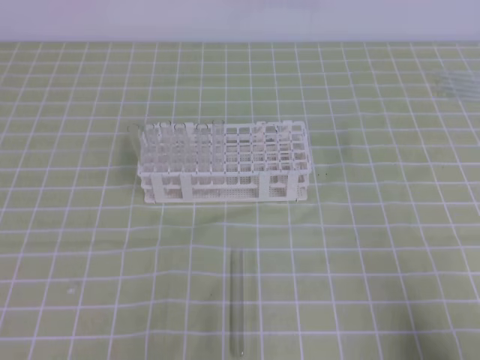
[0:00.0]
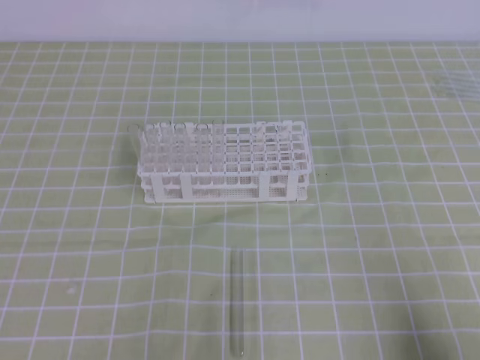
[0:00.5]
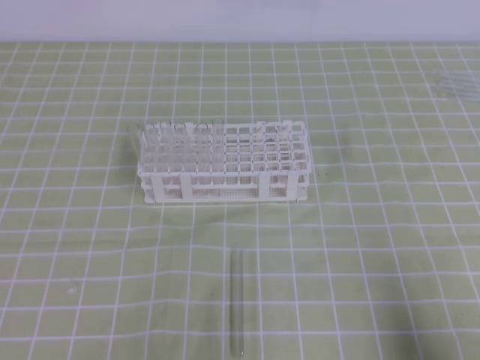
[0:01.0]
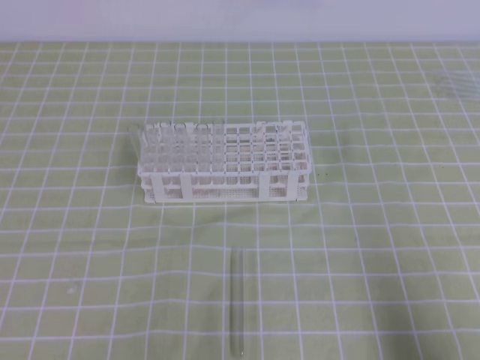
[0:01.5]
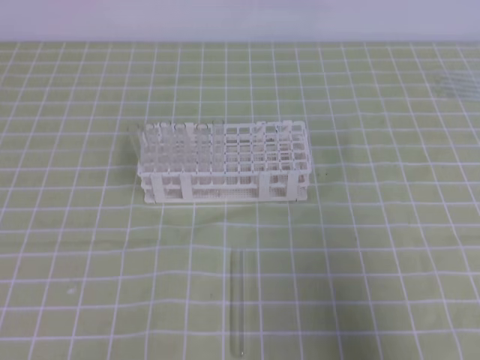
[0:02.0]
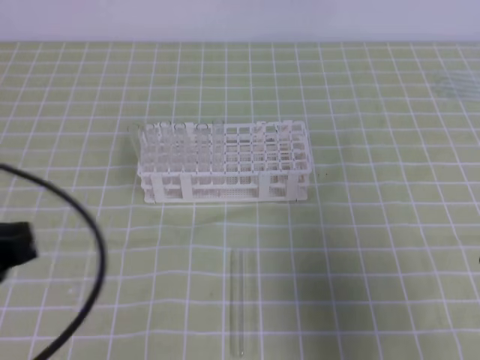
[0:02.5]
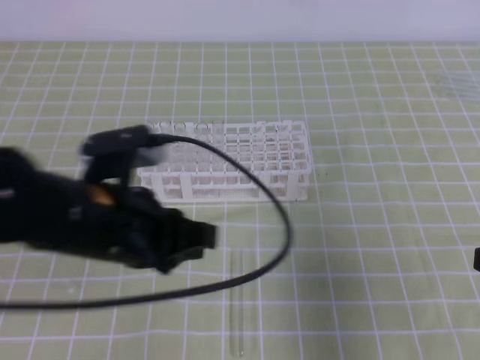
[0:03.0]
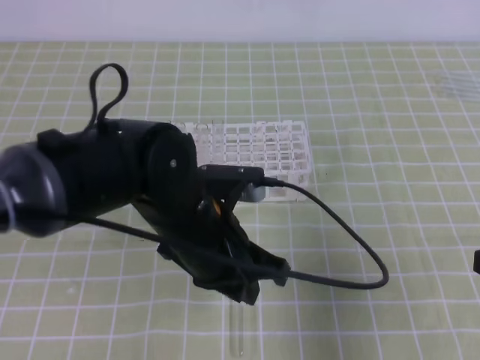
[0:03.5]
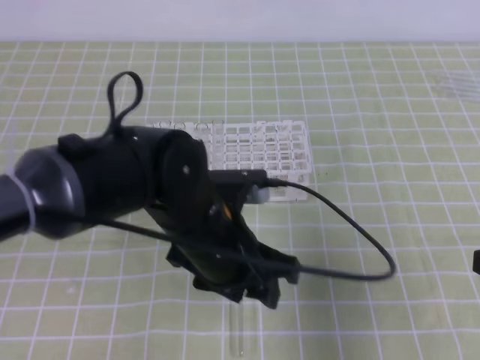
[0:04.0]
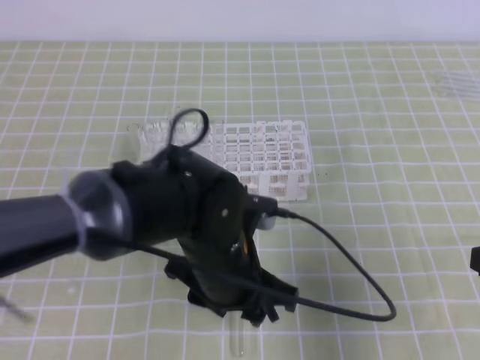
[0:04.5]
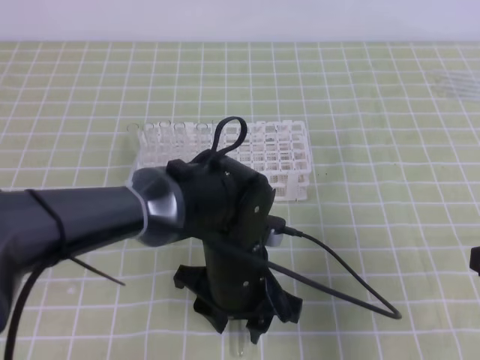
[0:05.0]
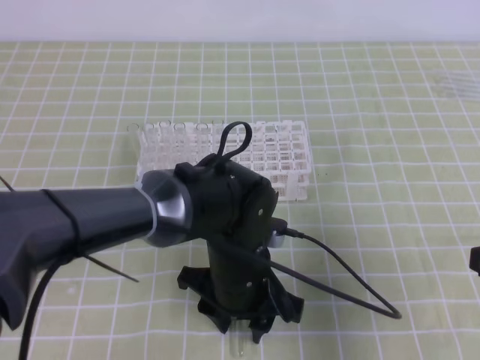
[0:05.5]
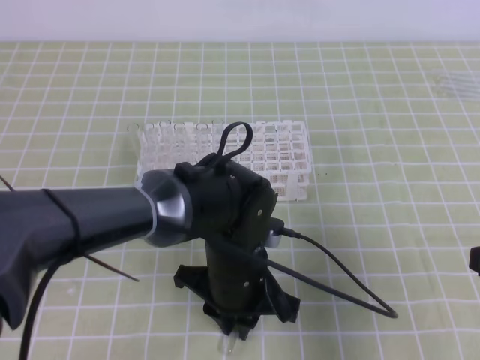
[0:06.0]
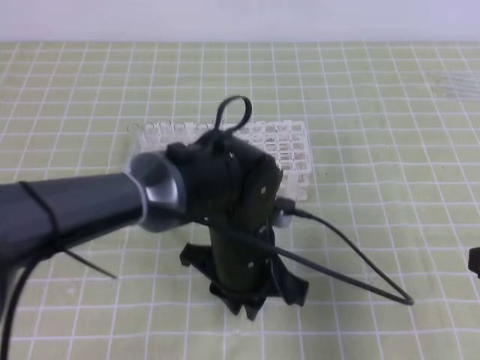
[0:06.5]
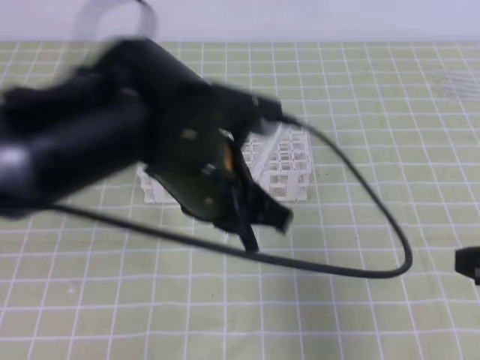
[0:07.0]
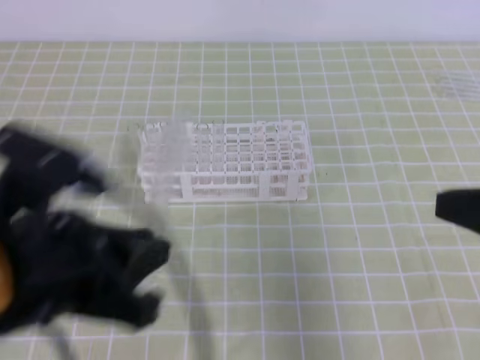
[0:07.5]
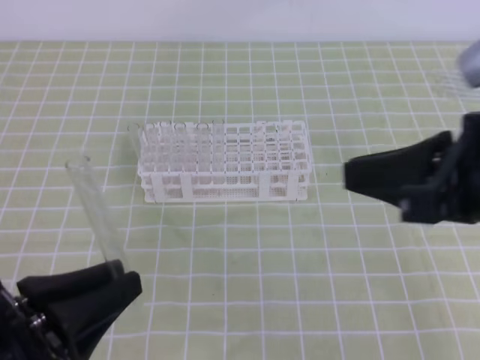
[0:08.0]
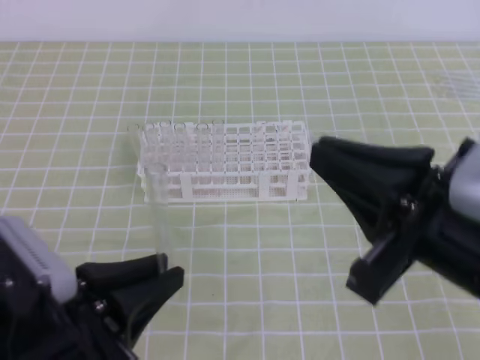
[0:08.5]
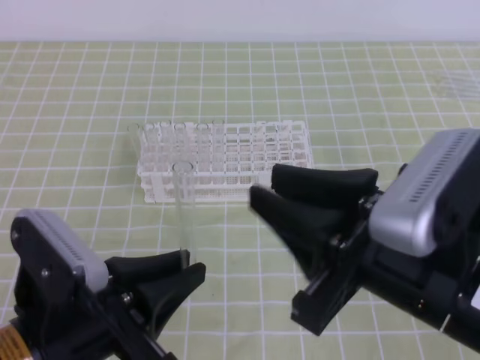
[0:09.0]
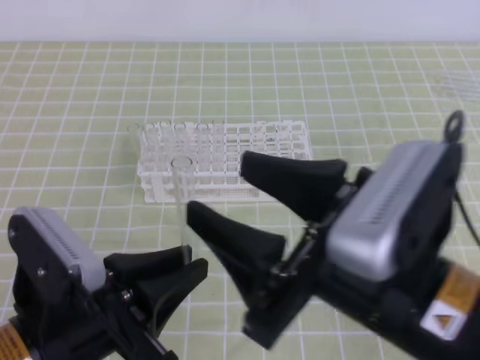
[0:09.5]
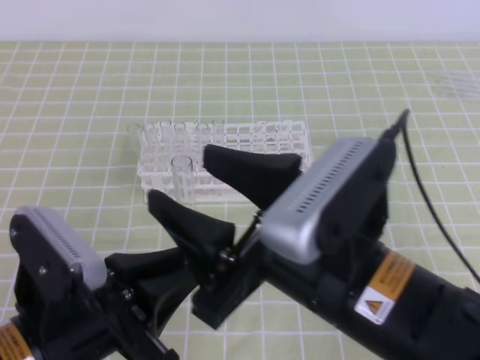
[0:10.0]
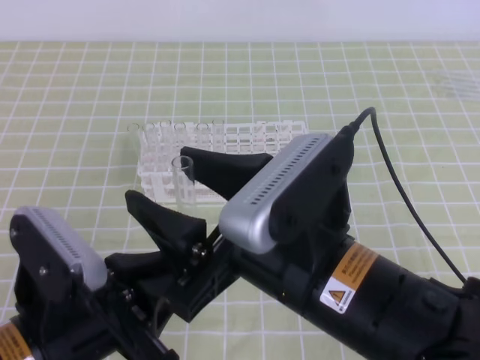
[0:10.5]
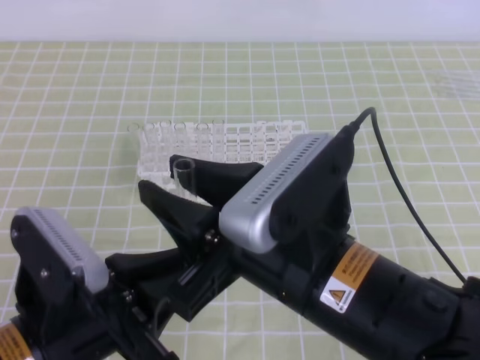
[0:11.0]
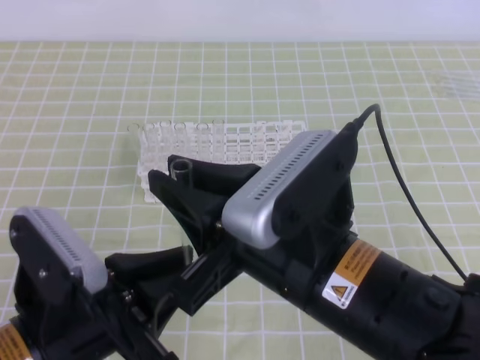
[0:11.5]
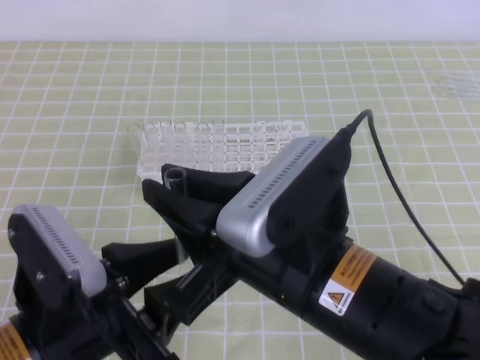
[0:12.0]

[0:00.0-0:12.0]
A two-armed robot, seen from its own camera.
0:00.0 to 0:02.0: The left gripper heads upward, covering some 5 cm; the right gripper travels upward by about 10 cm.
0:02.0 to 0:04.0: The left gripper shifts some 30 cm to the right and forward, and opens. Meanwhile the right gripper goes about 10 cm forward.
0:04.0 to 0:06.0: The left gripper shifts approximately 5 cm downward, and closes up.
0:06.0 to 0:08.0: The right gripper shifts about 10 cm upward and to the left; the left gripper heads to the left, backward and upward, covering about 25 cm.
0:08.0 to 0:10.0: The left gripper ends up roughly 5 cm from where it was; the right gripper shifts some 15 cm to the left, and opens.
0:10.0 to 0:12.0: The left gripper opens. The right gripper closes.

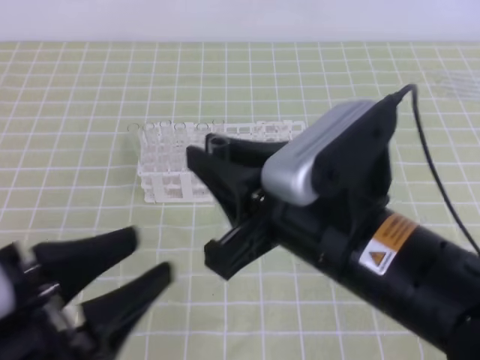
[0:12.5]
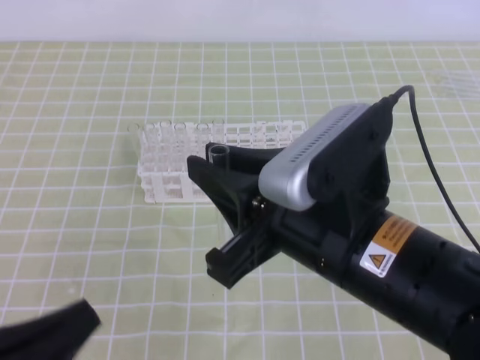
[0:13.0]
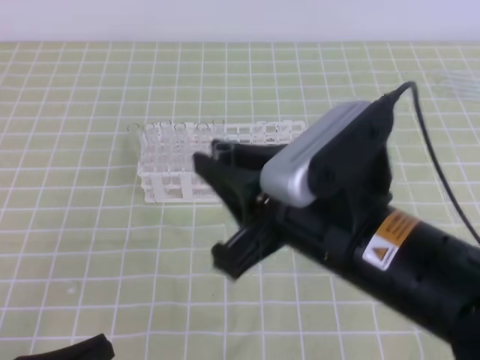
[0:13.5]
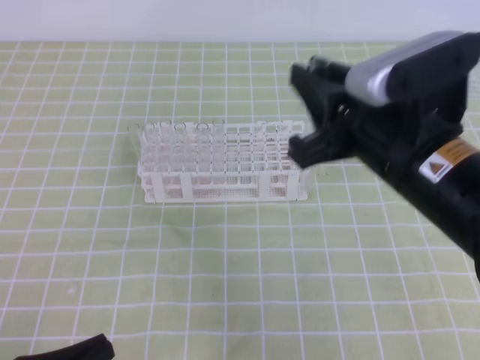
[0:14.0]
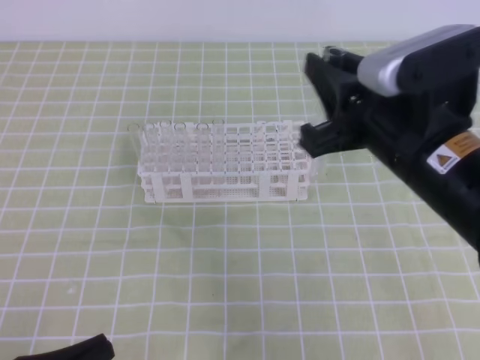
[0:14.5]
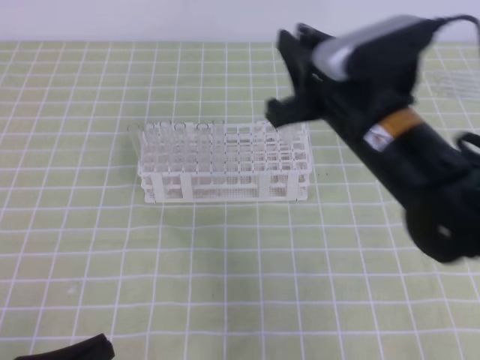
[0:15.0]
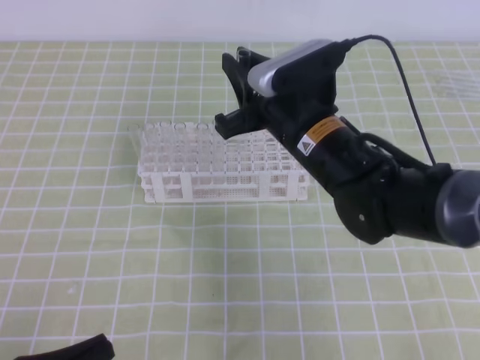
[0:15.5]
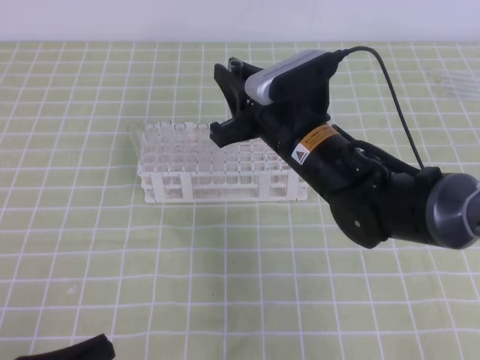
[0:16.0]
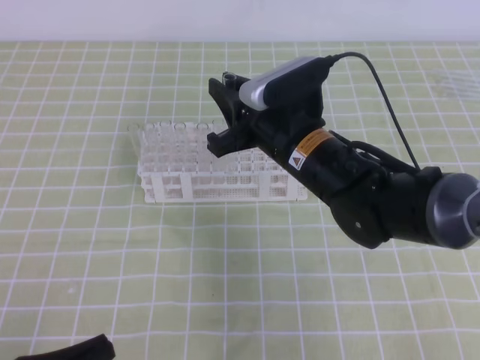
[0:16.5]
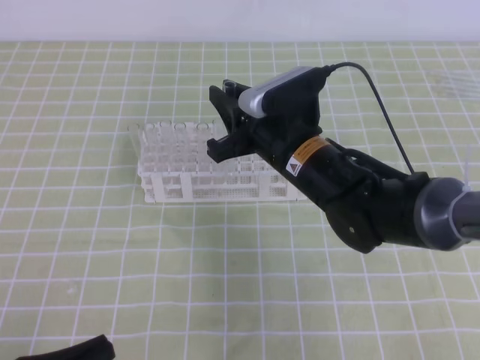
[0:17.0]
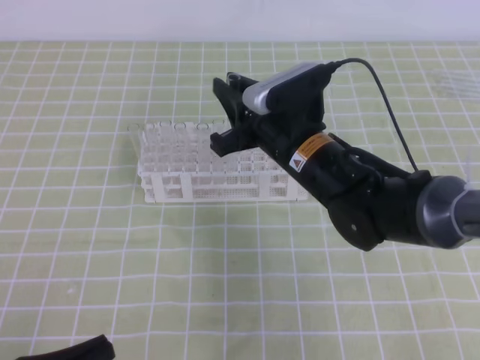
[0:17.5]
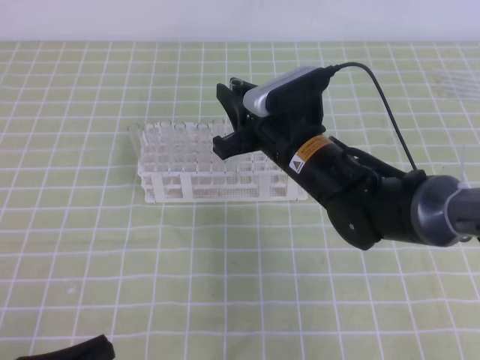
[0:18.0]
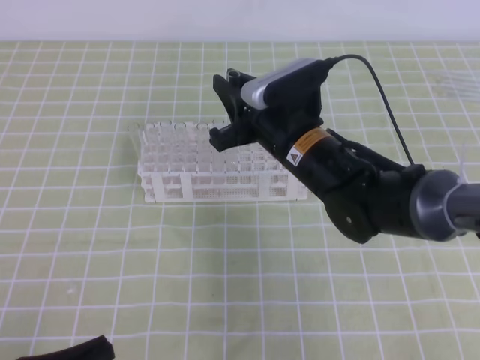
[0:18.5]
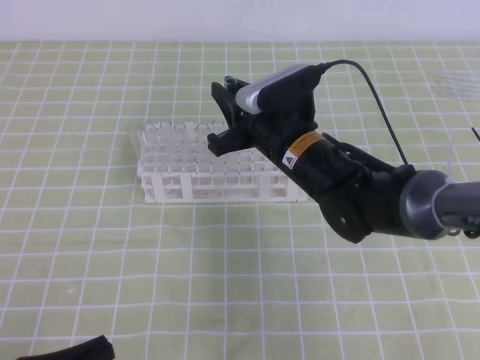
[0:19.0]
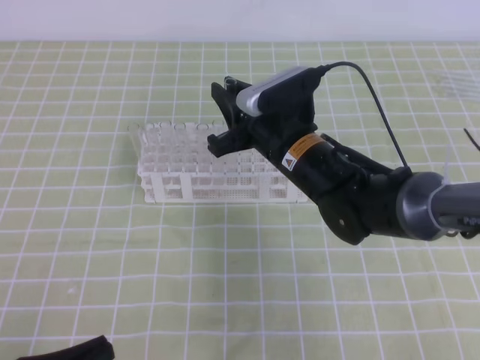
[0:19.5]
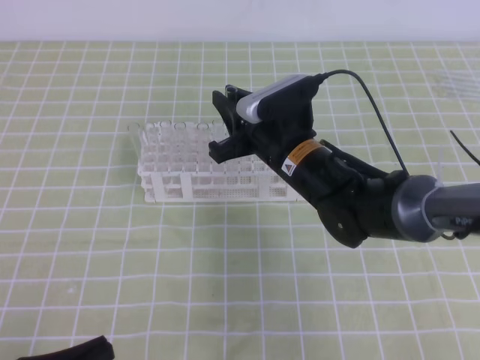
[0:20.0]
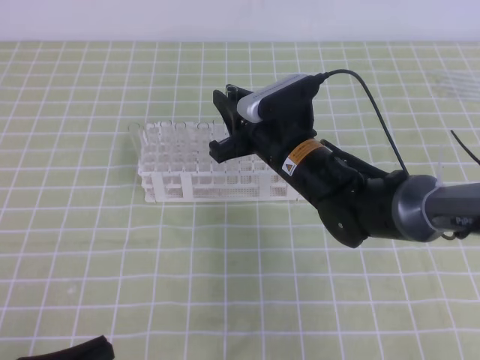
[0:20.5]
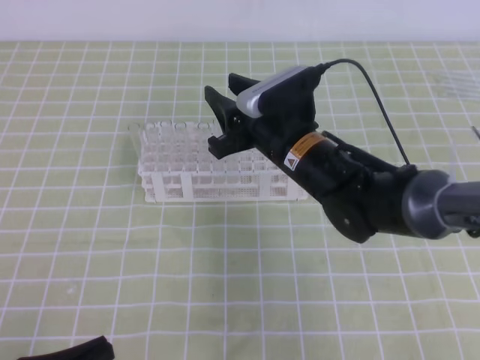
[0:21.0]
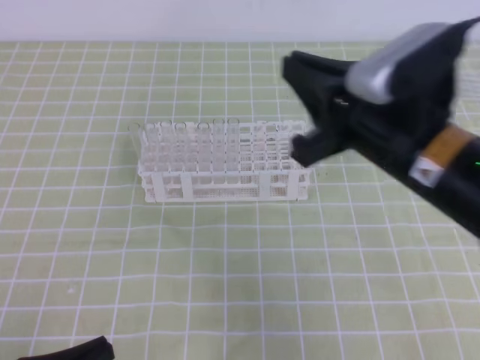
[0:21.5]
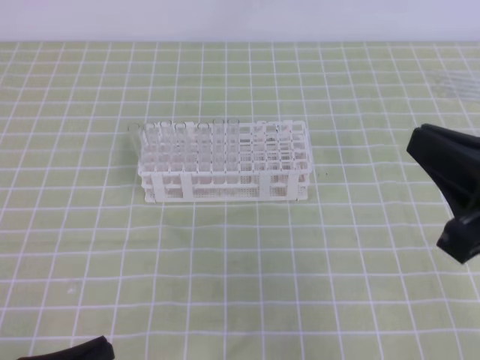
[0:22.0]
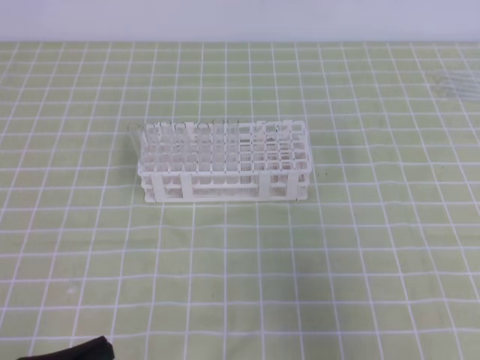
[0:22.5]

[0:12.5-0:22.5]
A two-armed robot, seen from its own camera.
0:12.5 to 0:14.5: The right gripper heads forward and to the right, covering approximately 10 cm. Meanwhile the left gripper heads downward, covering some 10 cm, and closes up.
0:14.5 to 0:16.5: The right gripper heads forward, to the left and downward, covering some 15 cm.
0:16.5 to 0:20.5: There are only small adjustments of the grippers.
0:20.5 to 0:22.5: The right gripper heads backward, to the right and upward, covering approximately 35 cm.
